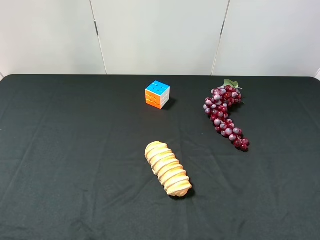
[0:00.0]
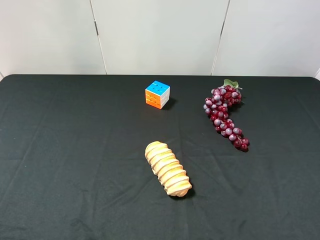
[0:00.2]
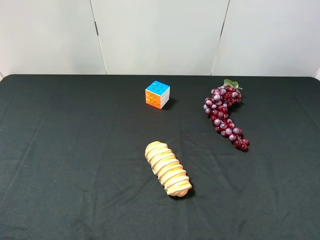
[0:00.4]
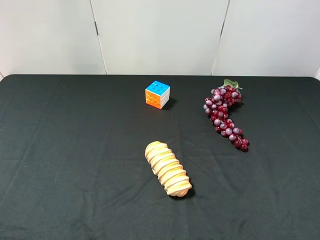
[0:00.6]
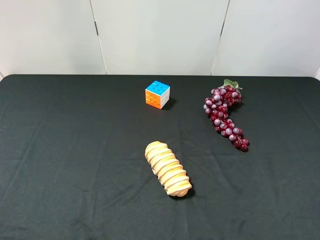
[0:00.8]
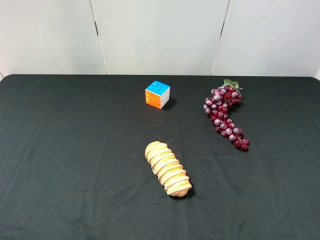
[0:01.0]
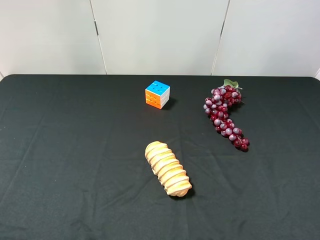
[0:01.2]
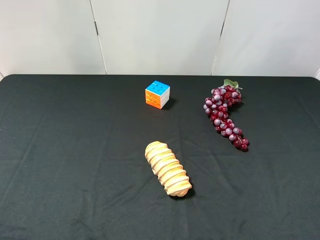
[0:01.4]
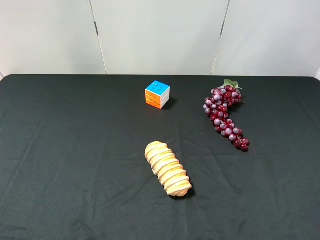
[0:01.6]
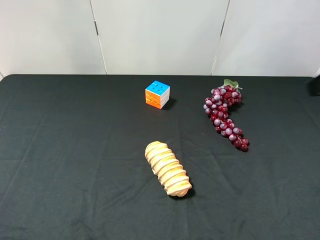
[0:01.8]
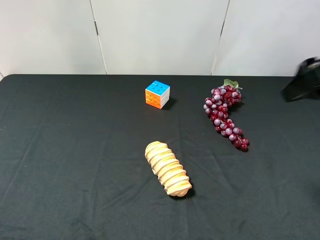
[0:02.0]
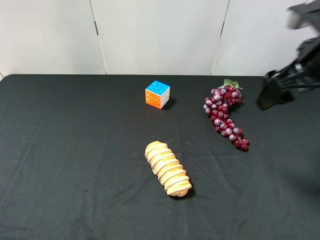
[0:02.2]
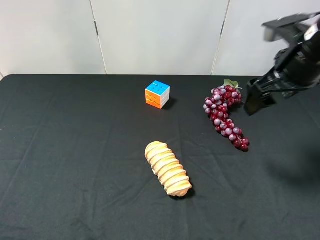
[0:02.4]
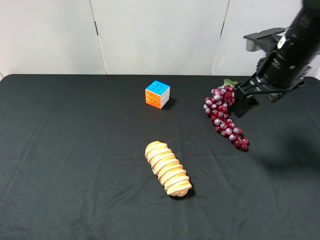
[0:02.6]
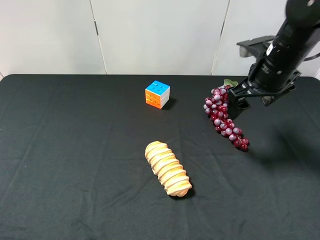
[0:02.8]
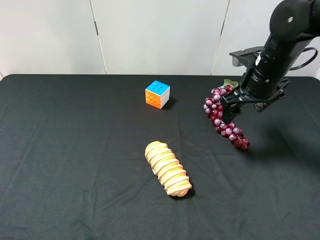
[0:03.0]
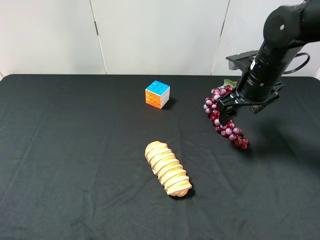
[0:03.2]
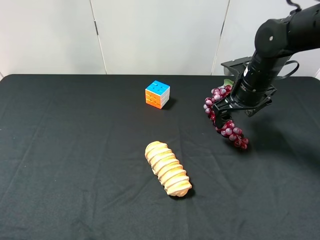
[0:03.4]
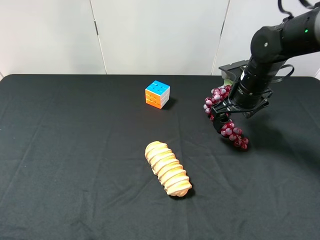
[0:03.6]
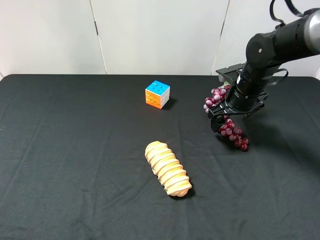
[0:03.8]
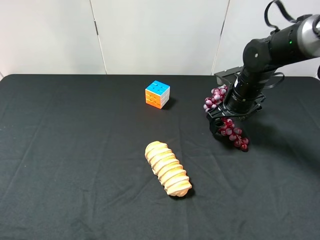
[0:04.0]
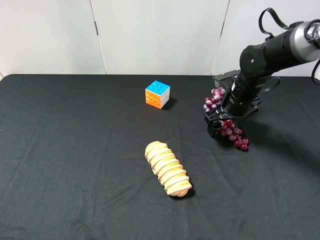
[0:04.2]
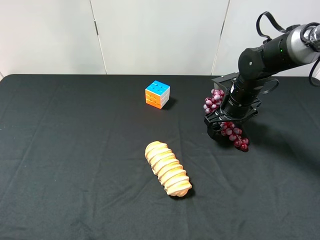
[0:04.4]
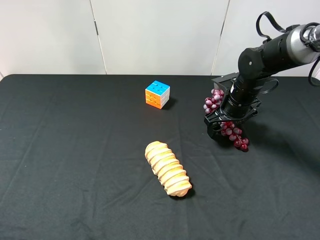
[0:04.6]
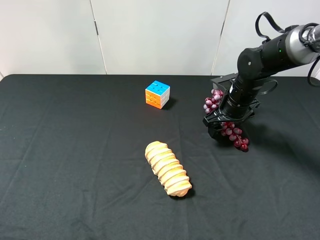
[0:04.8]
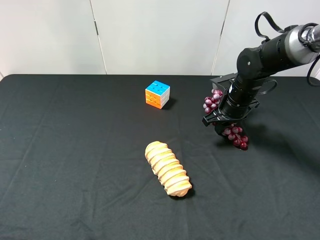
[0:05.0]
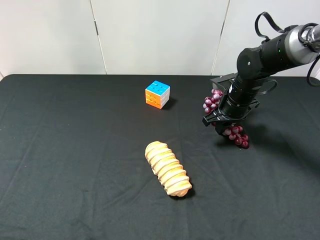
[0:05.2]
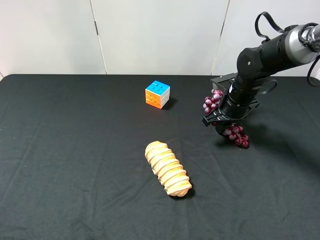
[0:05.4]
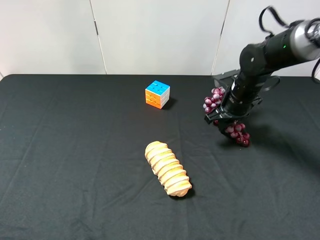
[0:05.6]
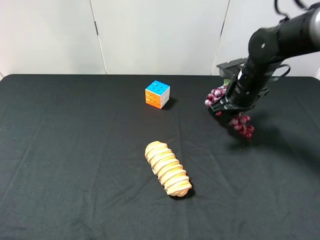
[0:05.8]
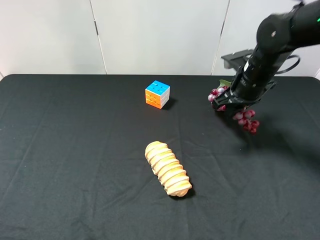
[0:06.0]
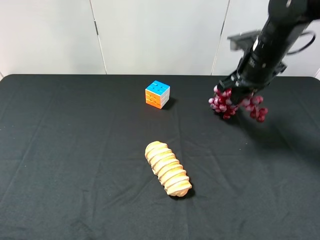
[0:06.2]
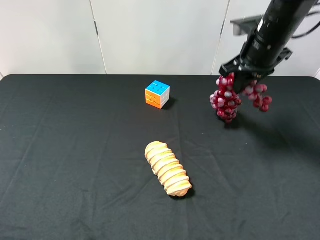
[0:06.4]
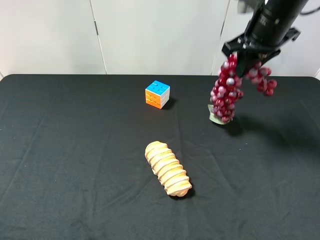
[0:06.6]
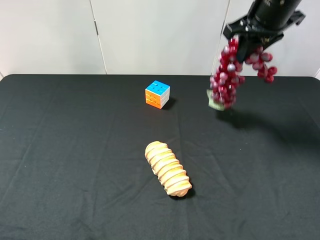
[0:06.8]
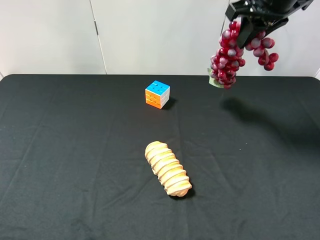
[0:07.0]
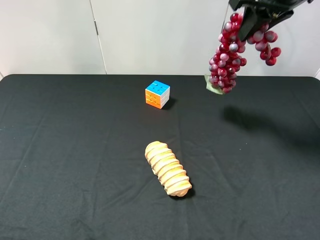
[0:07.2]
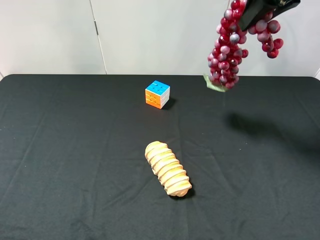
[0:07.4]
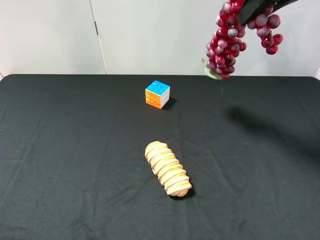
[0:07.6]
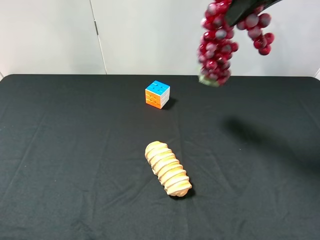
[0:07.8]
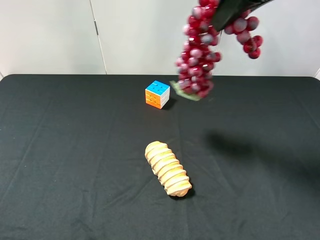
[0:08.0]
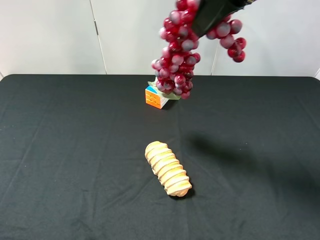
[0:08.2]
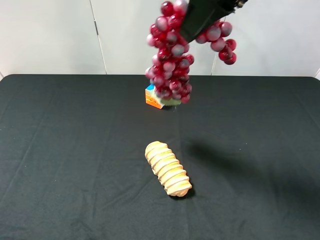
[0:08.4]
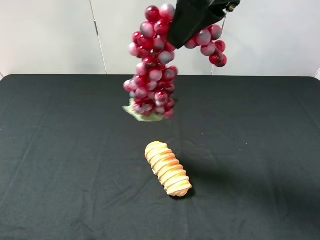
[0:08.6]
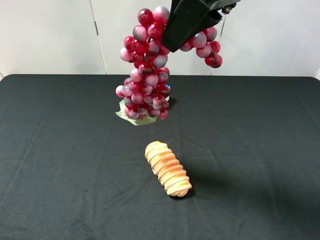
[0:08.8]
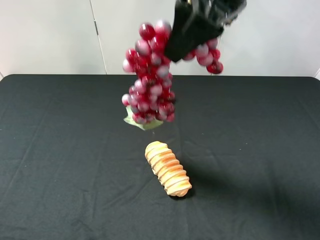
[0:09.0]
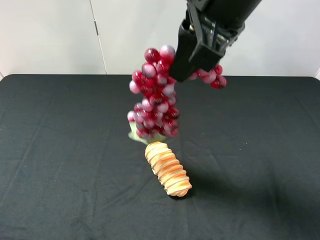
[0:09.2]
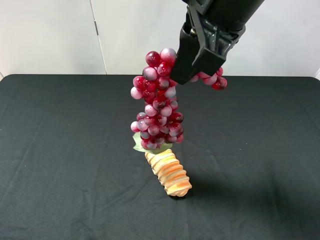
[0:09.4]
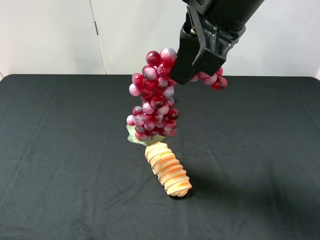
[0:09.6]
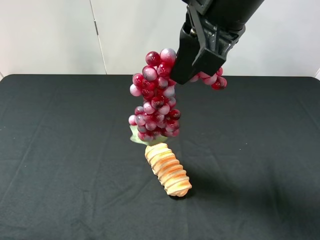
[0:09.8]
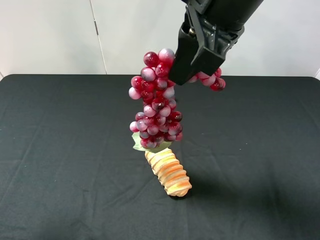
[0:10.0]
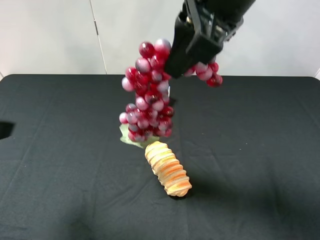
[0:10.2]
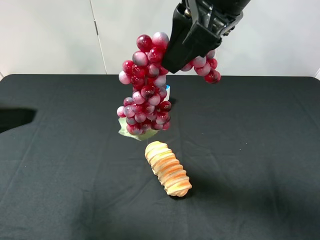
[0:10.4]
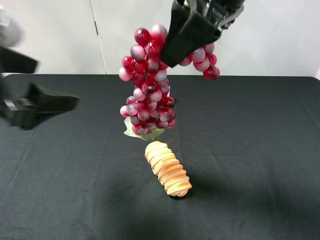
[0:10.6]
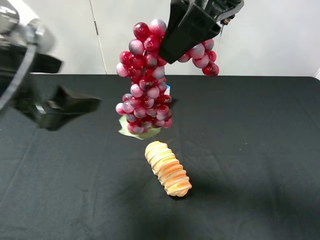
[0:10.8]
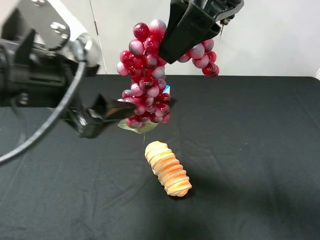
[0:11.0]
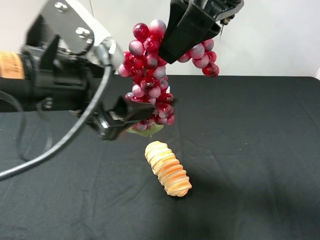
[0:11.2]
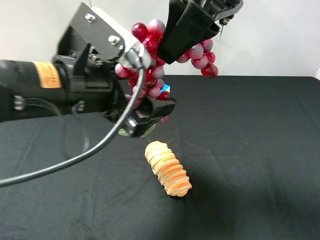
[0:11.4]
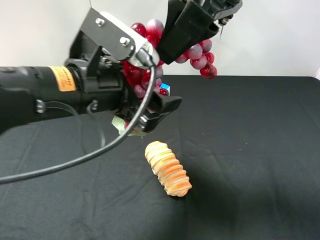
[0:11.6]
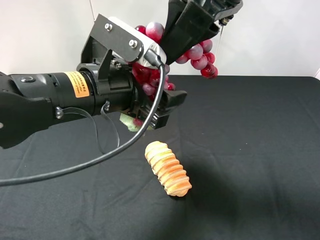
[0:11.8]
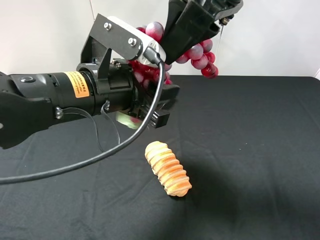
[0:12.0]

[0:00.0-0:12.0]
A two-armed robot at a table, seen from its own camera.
Task of the whole recording: use the right gripper to pick up the item and transfer it from the right gripper to the left gripper.
Step, 0:00.0 to 0:05.2: Use the right gripper to grab the grapes on the right side of the table.
0:01.6 to 0:03.0: The right gripper moves forward, downward and to the left, about 25 cm.
0:03.0 to 0:04.4: The right gripper travels downward by about 10 cm.
0:04.4 to 0:06.0: The right gripper goes some 5 cm upward, and closes.
0:06.0 to 0:07.6: The right gripper heads upward, covering some 20 cm.
0:07.6 to 0:09.0: The right gripper moves to the left and backward, approximately 15 cm.
0:09.0 to 0:10.4: The left gripper moves forward and to the right, about 15 cm.
0:10.4 to 0:12.0: The left gripper shifts some 20 cm to the right and downward, and closes its fingers.

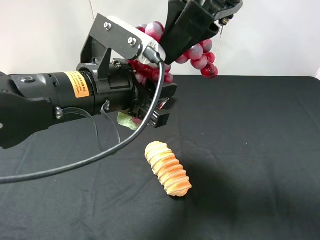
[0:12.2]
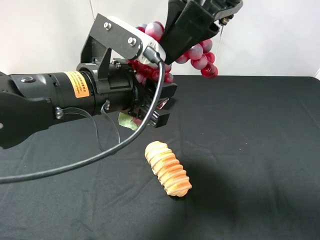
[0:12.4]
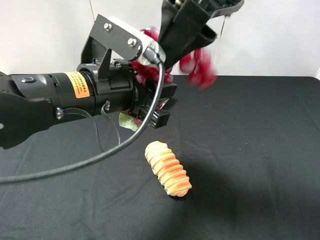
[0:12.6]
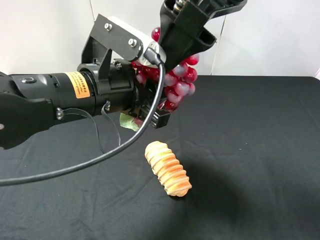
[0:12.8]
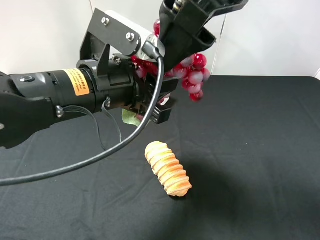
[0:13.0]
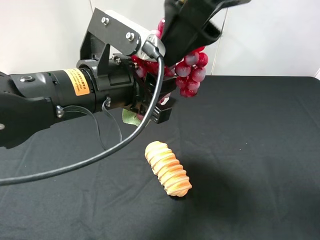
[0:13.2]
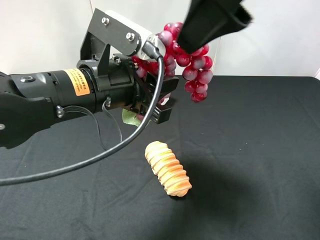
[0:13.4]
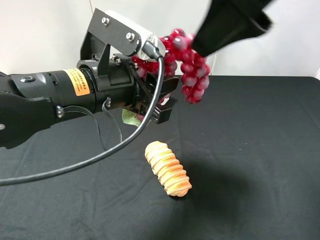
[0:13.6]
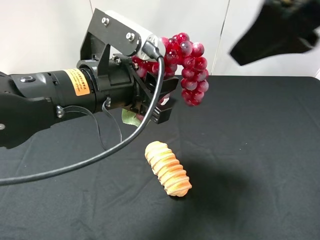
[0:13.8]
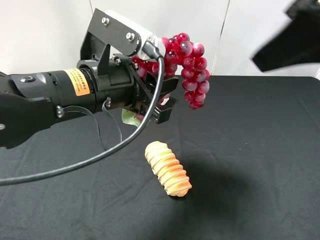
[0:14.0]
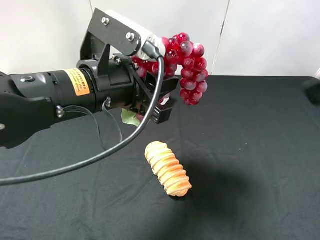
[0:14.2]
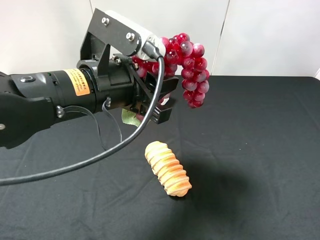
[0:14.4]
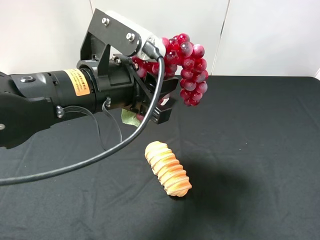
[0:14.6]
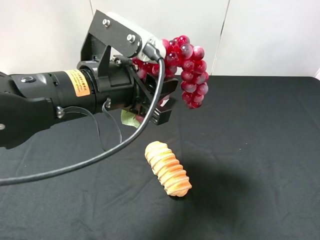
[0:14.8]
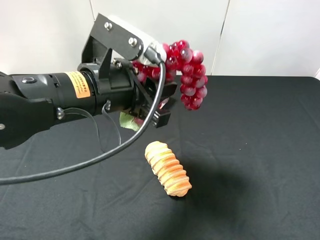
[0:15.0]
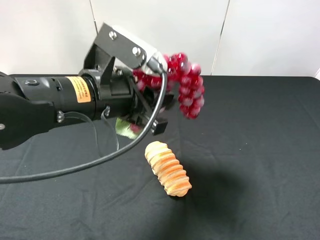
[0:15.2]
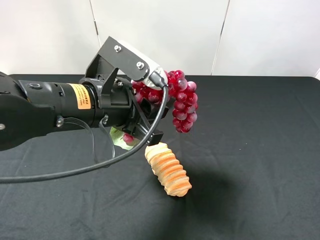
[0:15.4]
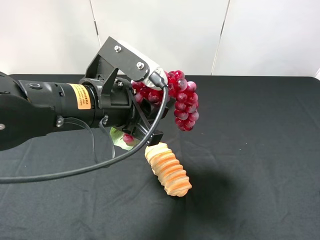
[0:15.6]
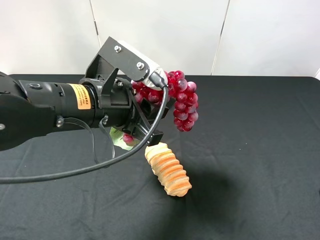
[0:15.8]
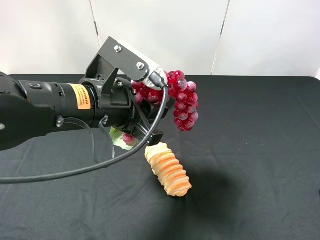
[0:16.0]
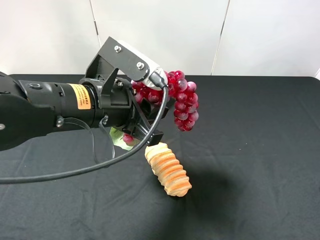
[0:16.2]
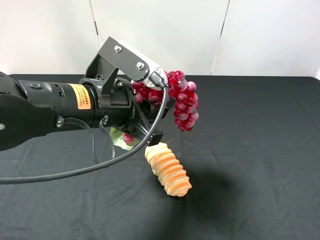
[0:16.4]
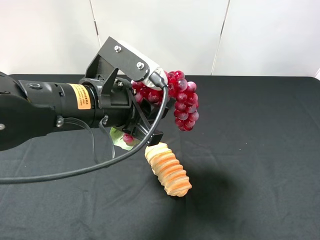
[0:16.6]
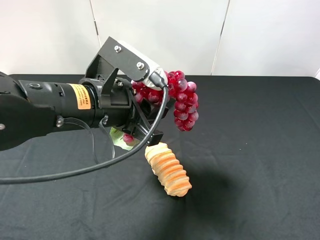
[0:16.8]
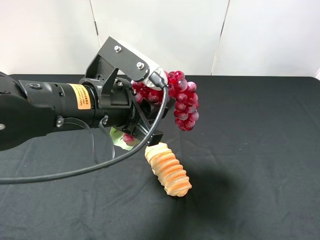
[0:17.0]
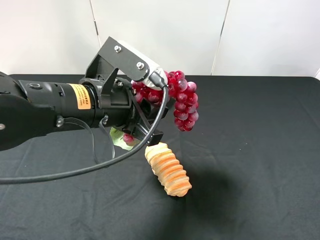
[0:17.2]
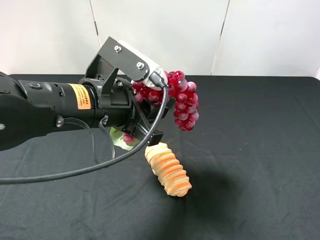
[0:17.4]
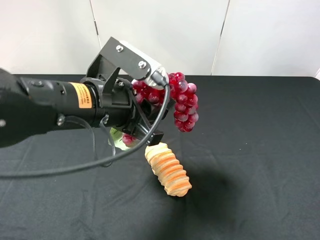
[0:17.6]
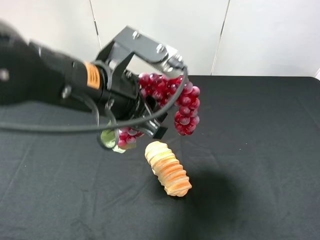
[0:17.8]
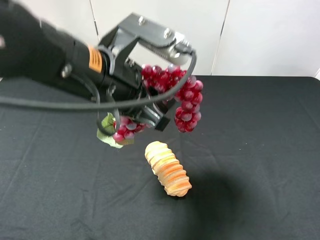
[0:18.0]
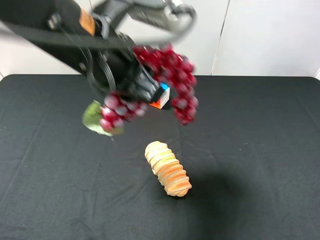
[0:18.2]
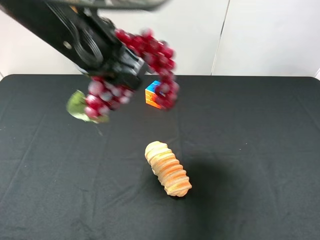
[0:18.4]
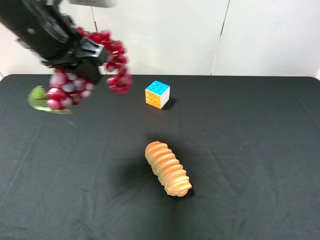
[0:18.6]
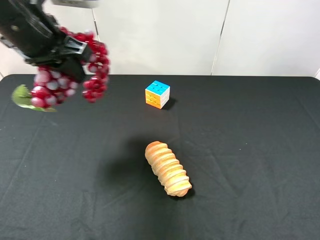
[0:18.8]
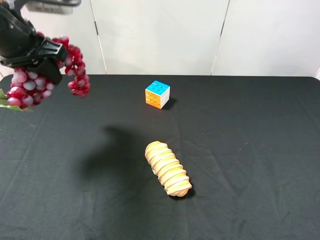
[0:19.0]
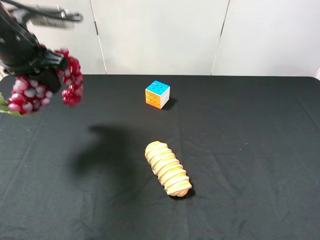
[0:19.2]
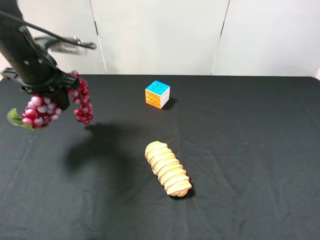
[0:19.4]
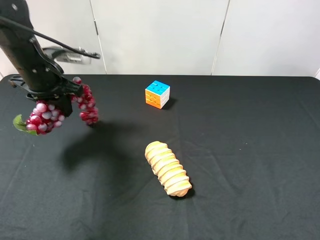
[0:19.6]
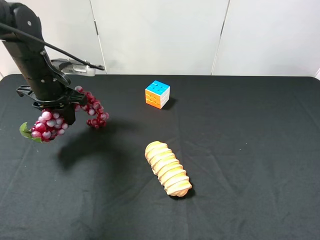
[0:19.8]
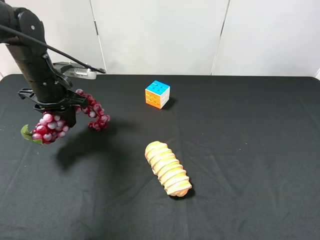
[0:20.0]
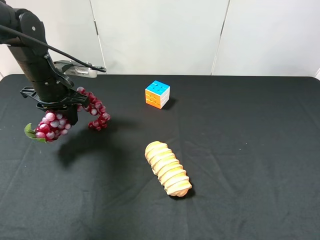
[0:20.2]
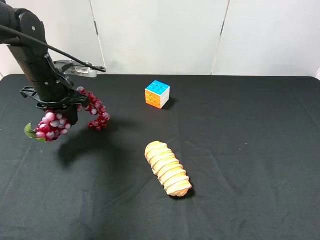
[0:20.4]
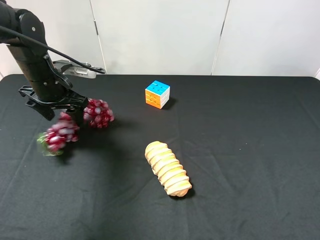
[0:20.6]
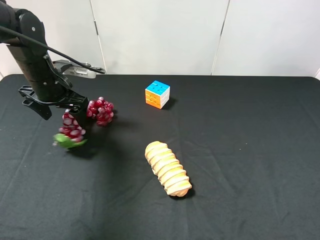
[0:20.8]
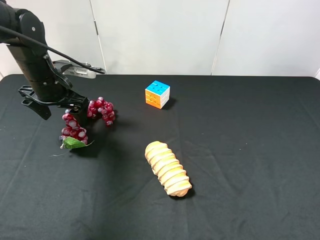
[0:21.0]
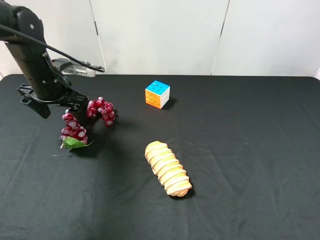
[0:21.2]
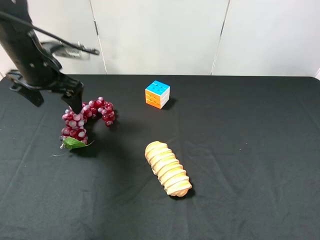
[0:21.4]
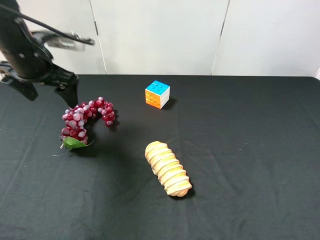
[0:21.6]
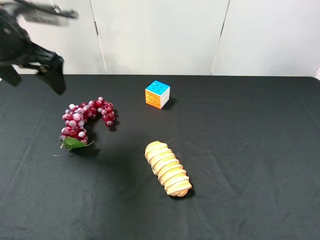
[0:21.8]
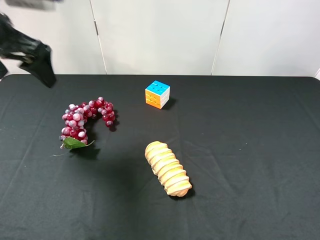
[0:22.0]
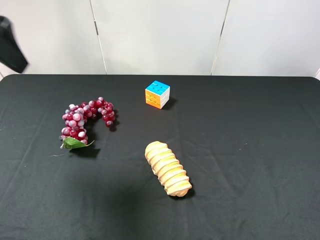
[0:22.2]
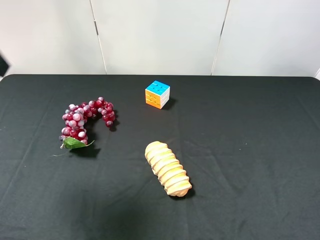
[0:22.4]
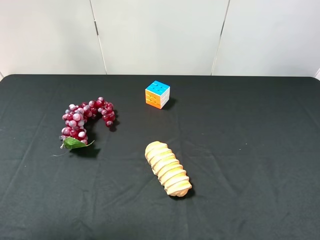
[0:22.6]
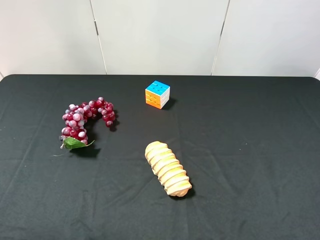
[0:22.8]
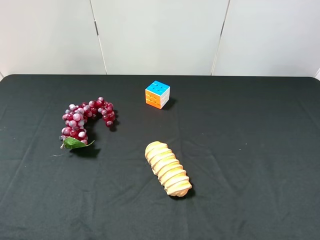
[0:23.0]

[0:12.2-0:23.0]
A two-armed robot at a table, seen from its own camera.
Task of the whole recording: use the right gripper to pick up the item and transfer it from the right gripper to the left gripper.
Step, 0:13.8 to 0:20.8: The left gripper places grapes on the left side of the table.
0:12.2 to 0:13.8: The right gripper heads to the right, covering some 10 cm, and opens up.
0:13.8 to 0:15.2: The right gripper travels to the right, downward and backward by about 25 cm.
0:16.8 to 0:18.4: The left gripper shifts some 10 cm upward and forward.
0:18.4 to 0:20.0: The left gripper heads downward, to the left and forward, covering approximately 20 cm.
0:20.0 to 0:21.4: The left gripper moves upward, roughly 5 cm, and opens.
0:21.4 to 0:23.0: The left gripper moves backward, some 30 cm.
